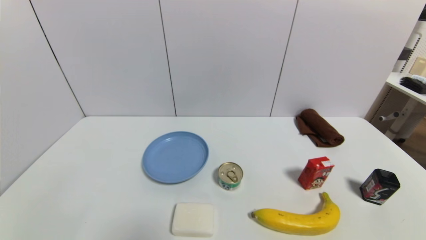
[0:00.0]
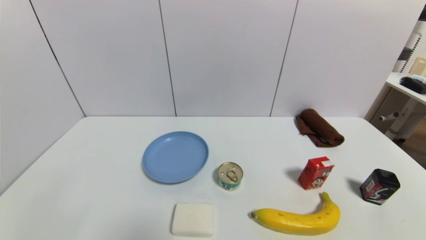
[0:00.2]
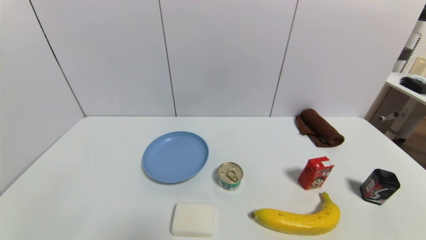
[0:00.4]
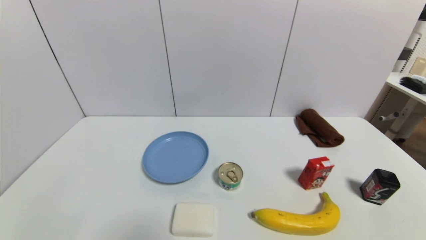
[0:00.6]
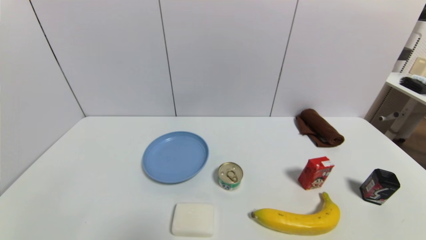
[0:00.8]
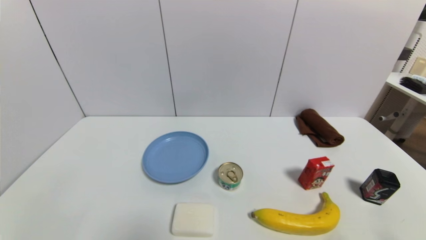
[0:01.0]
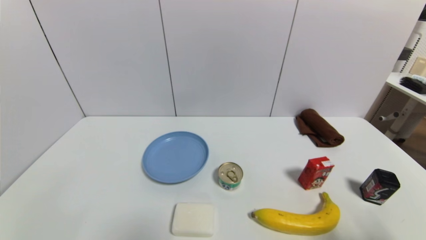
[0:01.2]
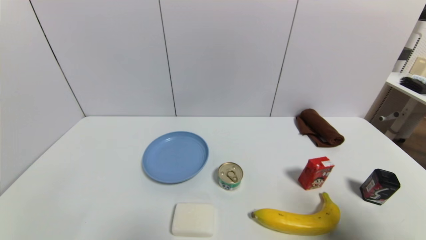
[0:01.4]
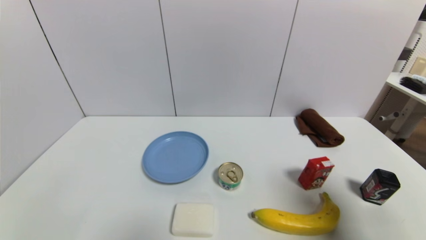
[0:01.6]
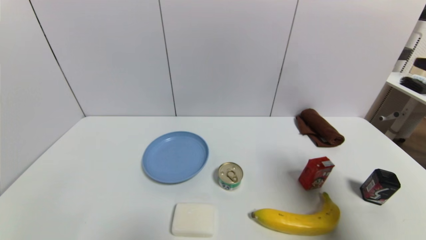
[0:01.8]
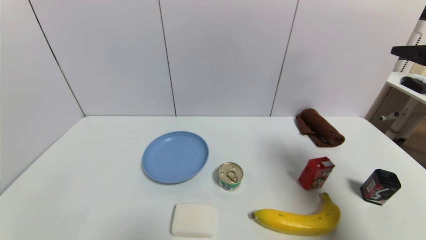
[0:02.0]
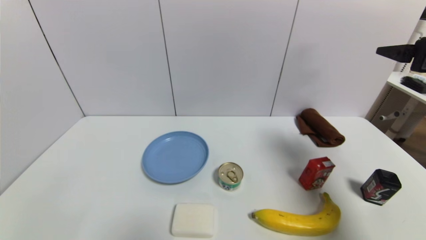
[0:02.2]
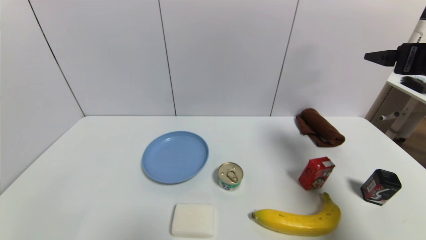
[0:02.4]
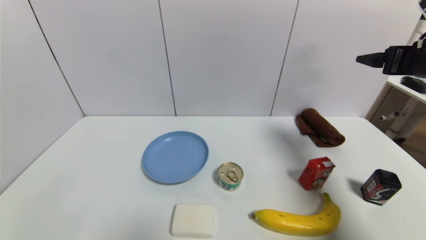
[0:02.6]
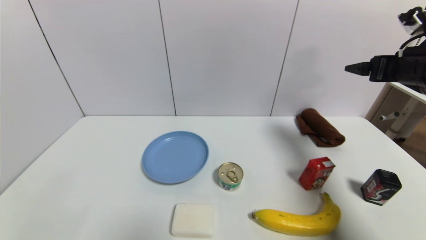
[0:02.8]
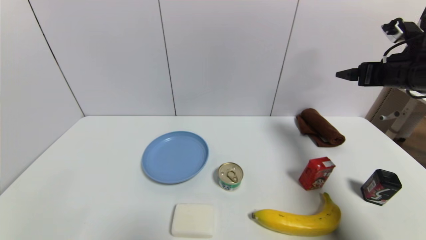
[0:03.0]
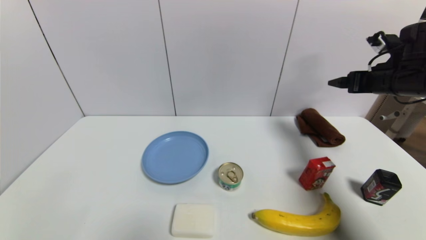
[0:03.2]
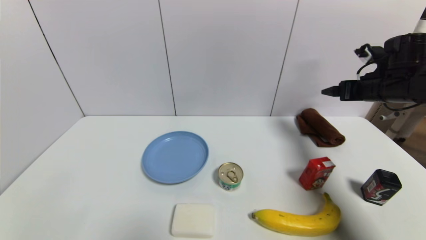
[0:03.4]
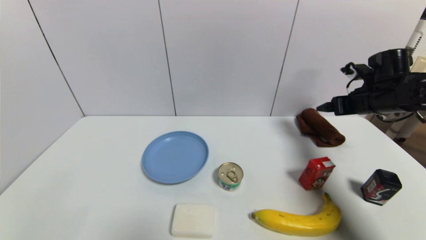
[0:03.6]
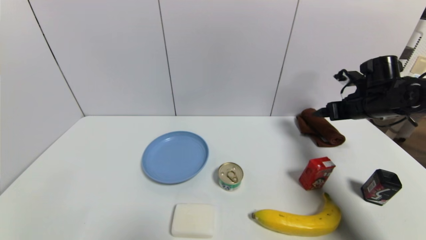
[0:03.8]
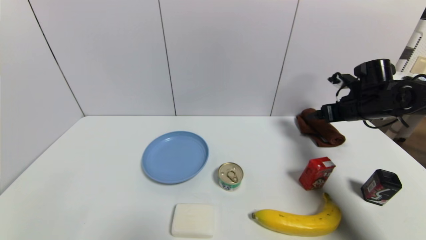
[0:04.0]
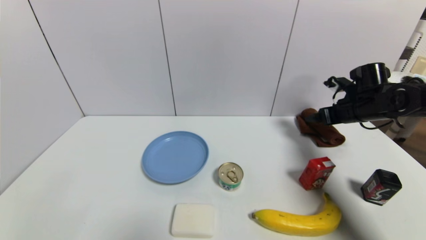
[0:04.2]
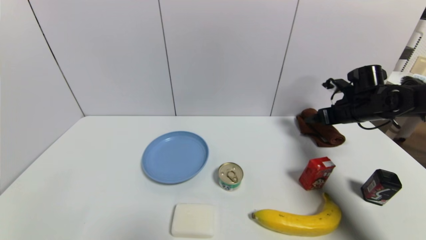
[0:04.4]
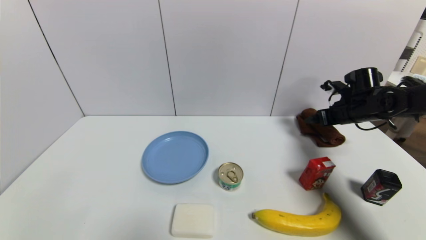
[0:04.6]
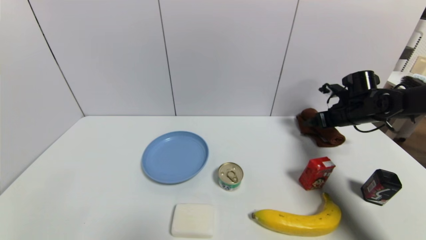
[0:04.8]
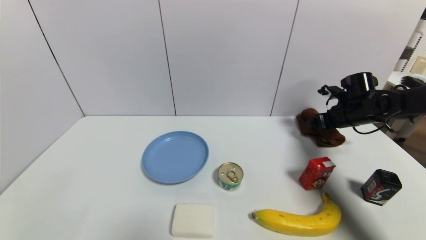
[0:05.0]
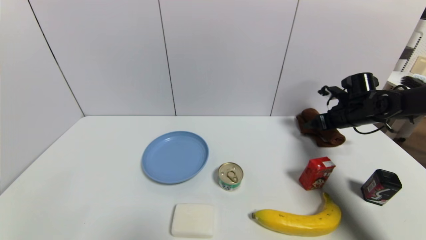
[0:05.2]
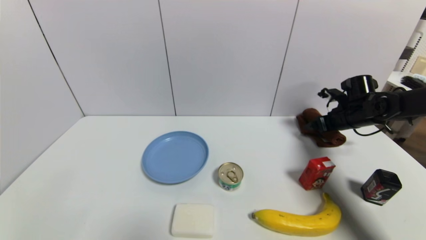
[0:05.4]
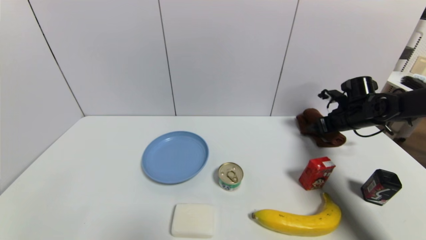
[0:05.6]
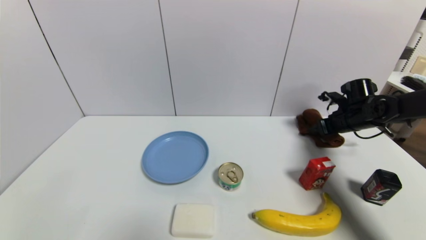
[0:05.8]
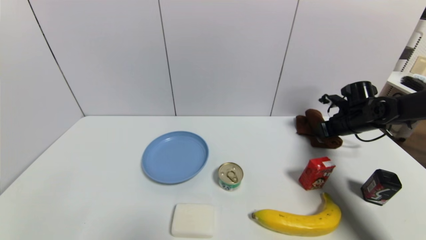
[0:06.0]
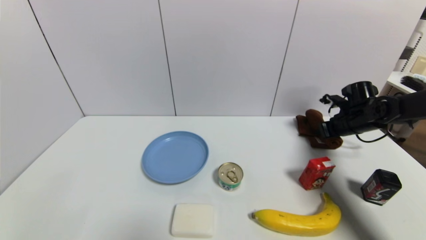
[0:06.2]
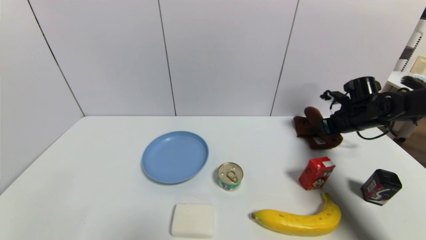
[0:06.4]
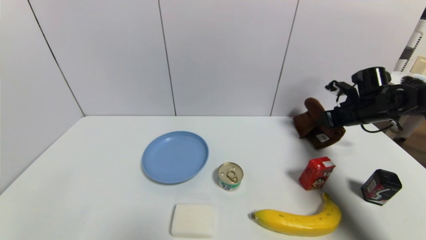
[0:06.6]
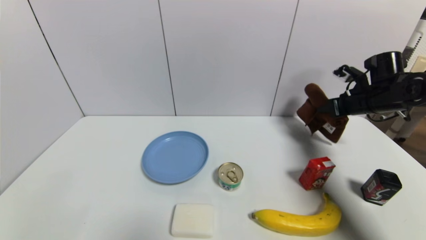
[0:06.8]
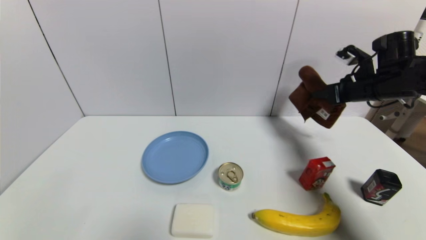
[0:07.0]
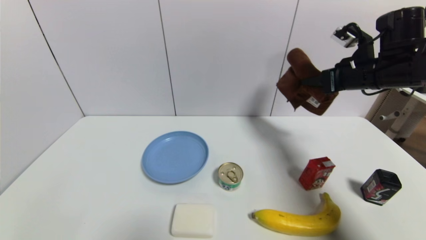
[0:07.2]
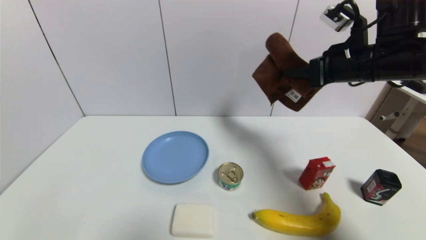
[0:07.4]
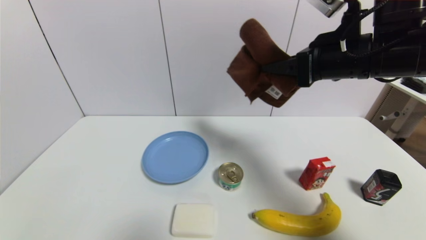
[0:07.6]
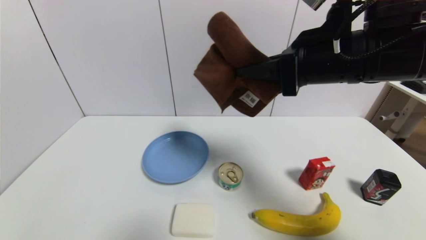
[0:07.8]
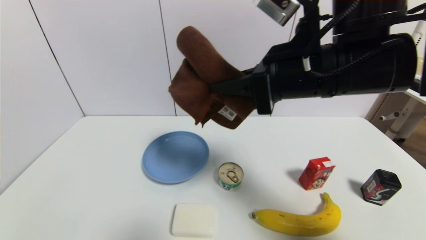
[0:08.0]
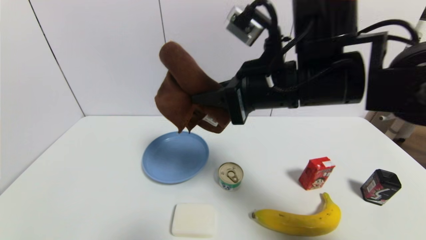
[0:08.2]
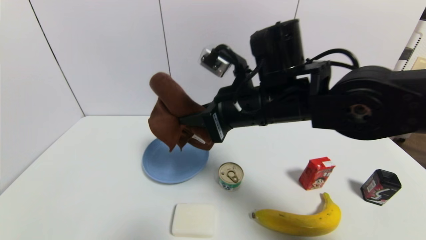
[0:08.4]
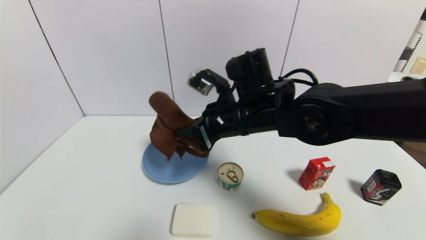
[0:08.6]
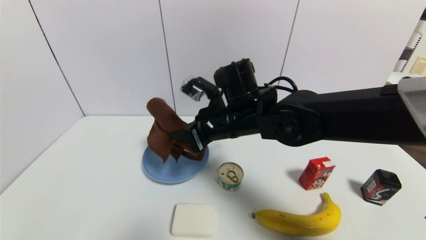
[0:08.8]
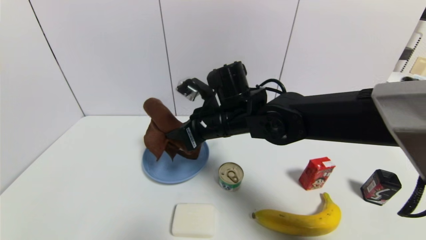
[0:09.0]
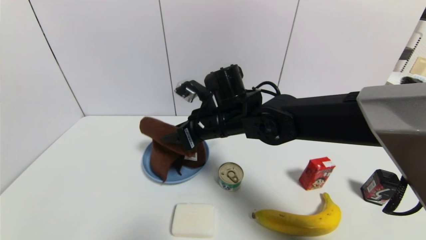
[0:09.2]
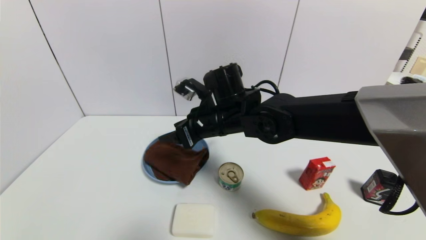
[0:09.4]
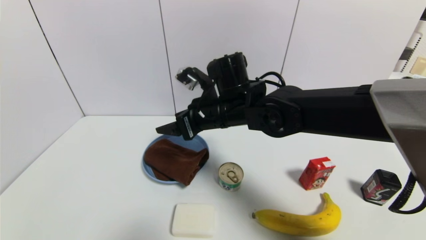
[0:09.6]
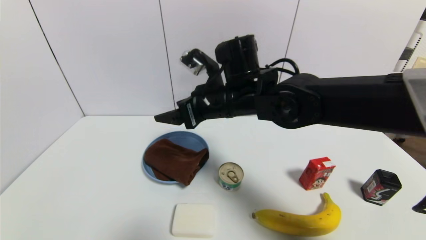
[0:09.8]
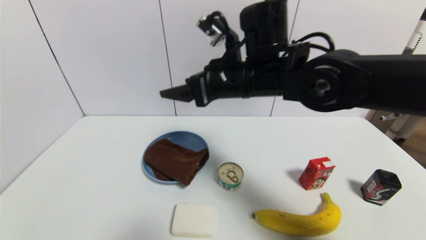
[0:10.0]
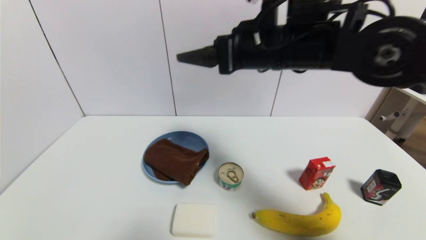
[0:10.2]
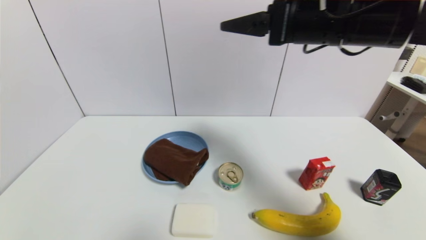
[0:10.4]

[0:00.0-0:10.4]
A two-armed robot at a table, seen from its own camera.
Task of the whole recording: use a gripper to pick the target object and place on the blue plate.
Step, 0:00.0 to 0:06.2: Grasp the brown towel with the right gripper.
Step, 0:06.4 to 0:10.0: Place the brown towel on the blue plate with the right gripper.
0:00.0 to 0:01.4: The right gripper goes about 20 cm upward.
0:01.4 to 0:03.0: The right gripper travels forward by some 25 cm.
0:03.0 to 0:04.4: The right gripper shifts about 15 cm downward and forward.
0:04.4 to 0:06.0: The right gripper closes up.
0:06.0 to 0:07.4: The right gripper goes about 25 cm upward, to the left and backward.
0:07.4 to 0:09.0: The right gripper shifts about 25 cm to the left and downward.
0:09.0 to 0:10.4: The right gripper is displaced upward and to the right by approximately 20 cm, and opens.

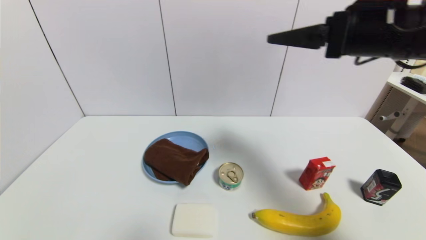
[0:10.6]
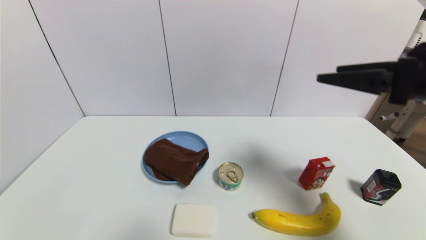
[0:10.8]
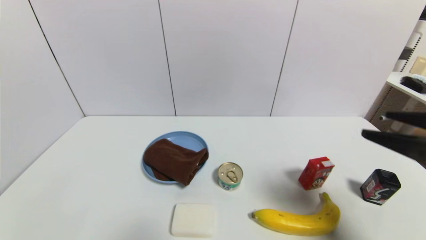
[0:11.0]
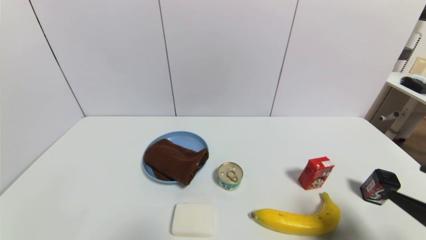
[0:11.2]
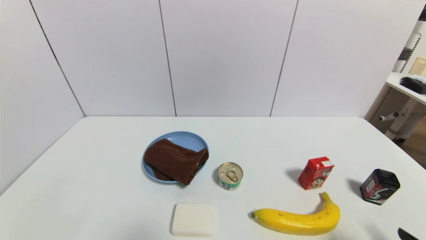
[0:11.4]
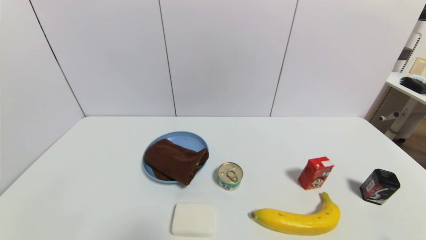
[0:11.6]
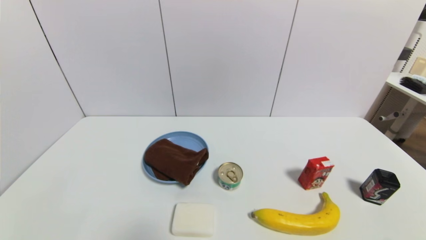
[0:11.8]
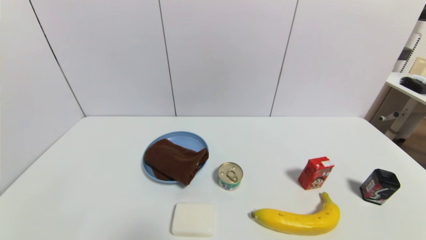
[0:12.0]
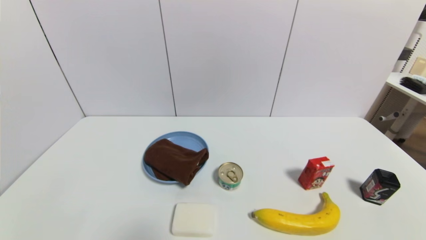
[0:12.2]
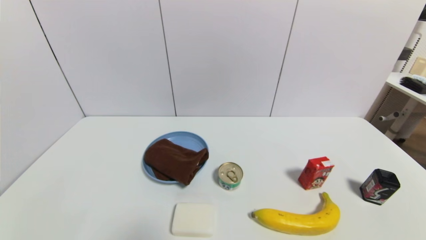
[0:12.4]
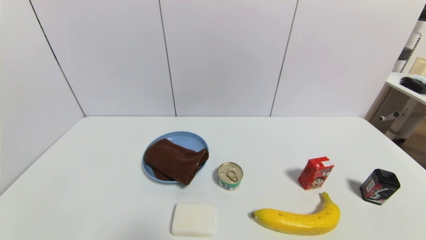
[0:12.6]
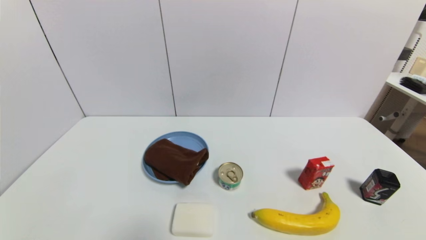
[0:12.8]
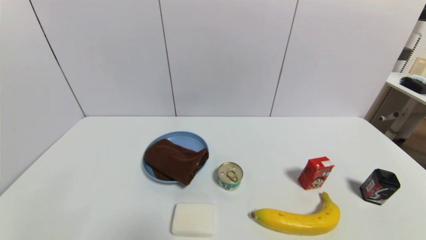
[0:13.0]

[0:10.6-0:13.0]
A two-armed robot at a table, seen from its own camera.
Task of the whole recording: use a gripper to pick the target object and place on the blue plate.
0:10.6 to 0:11.8: The right gripper heads downward, backward and to the right, covering roughly 40 cm.
